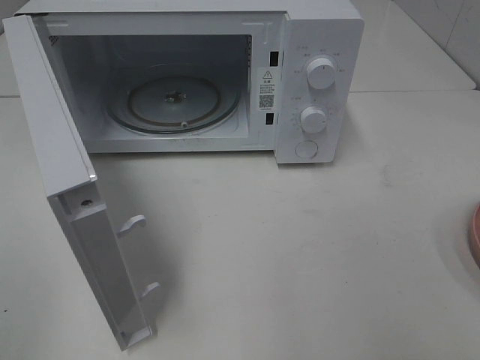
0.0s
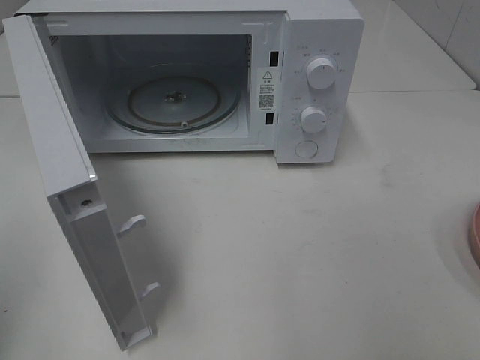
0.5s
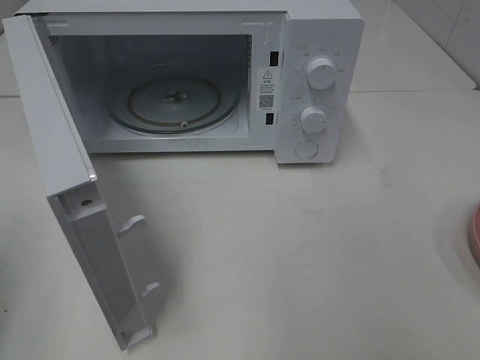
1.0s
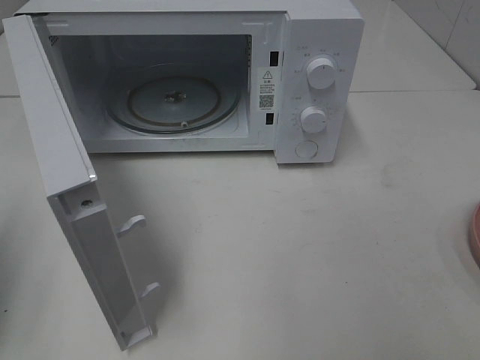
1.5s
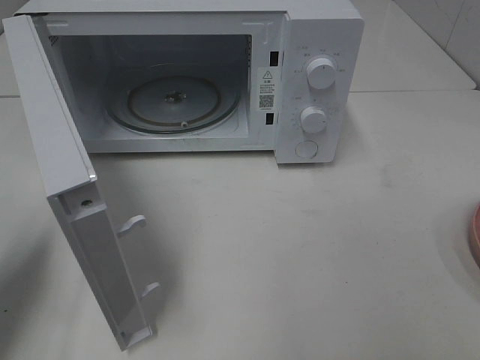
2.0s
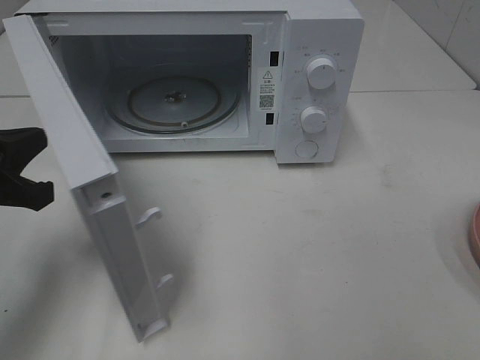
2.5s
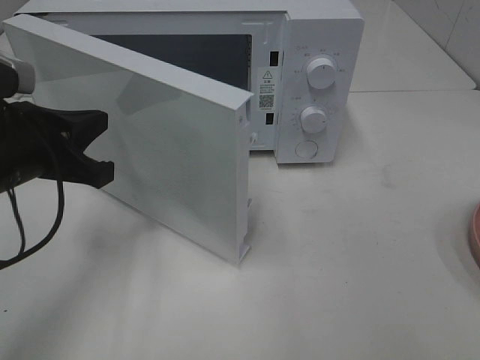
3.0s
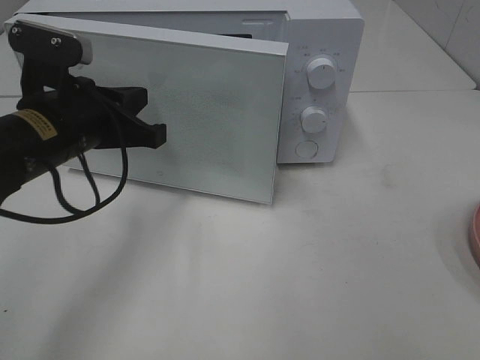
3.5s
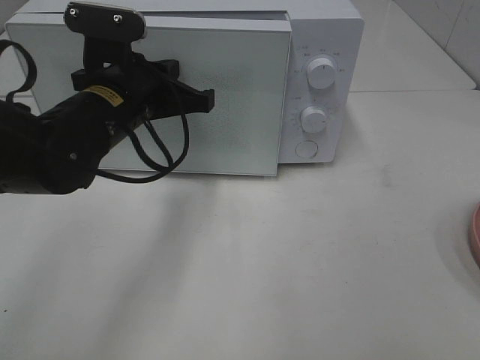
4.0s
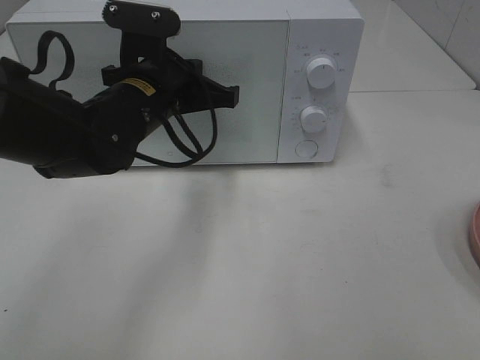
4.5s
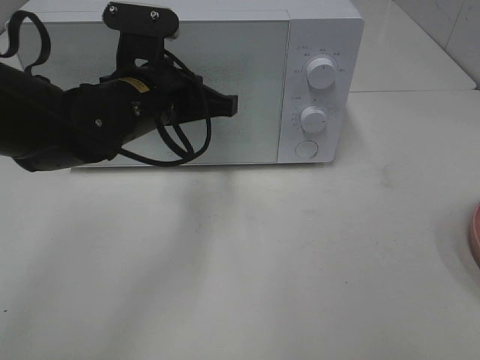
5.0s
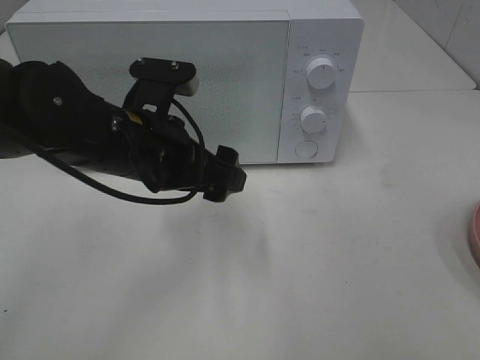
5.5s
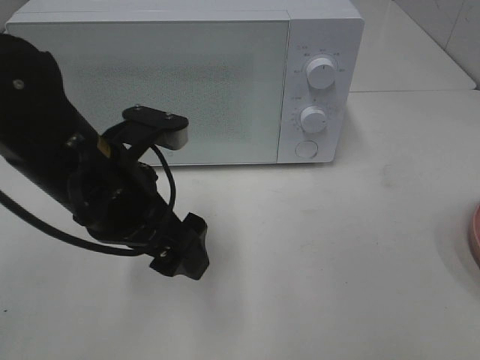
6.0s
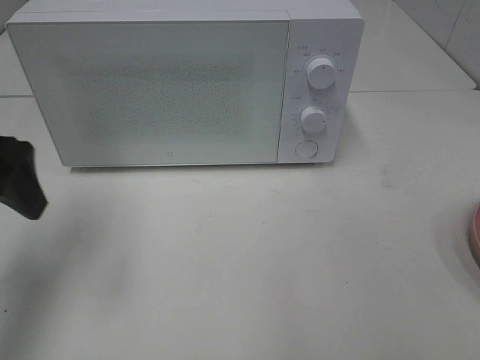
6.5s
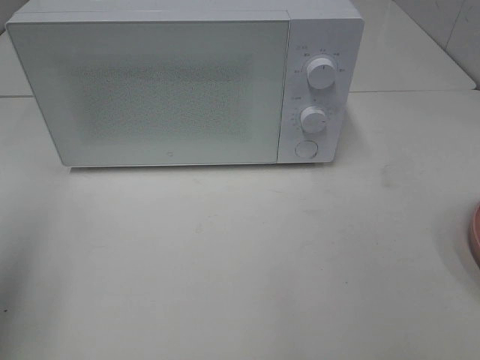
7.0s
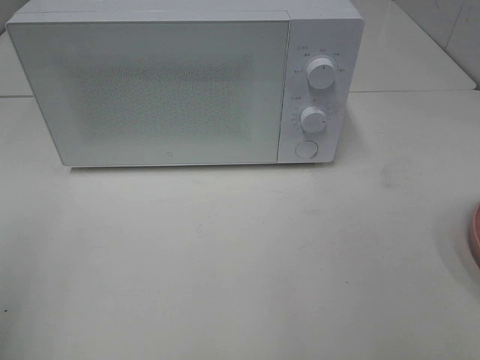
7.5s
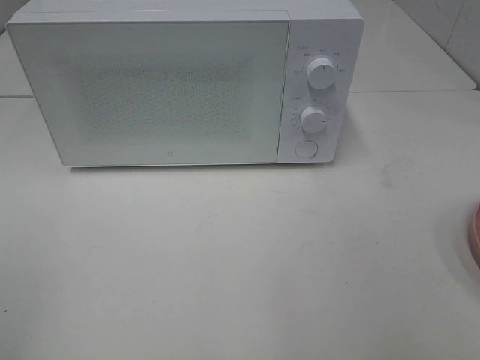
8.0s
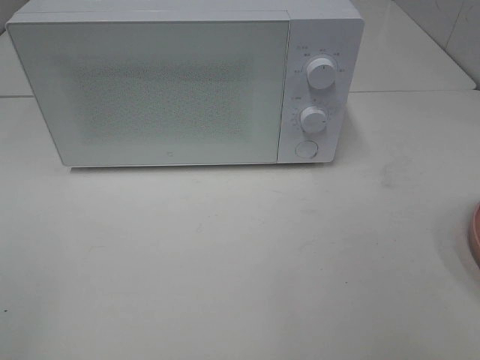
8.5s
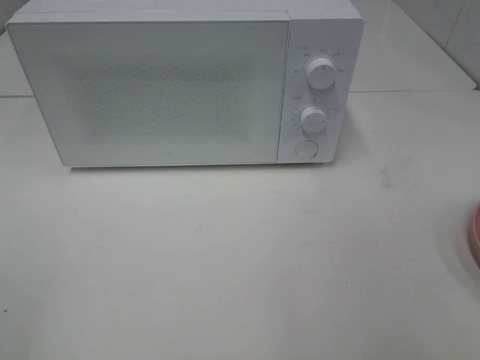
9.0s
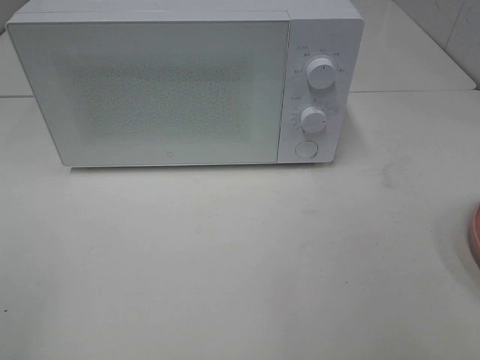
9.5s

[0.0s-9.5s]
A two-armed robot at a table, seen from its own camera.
Task of the whole recording: Heat the burger.
Step, 0.0s to 5.0s: Left hand: close the microwave door.
0.0s to 2.0s: The left gripper heads forward and downward, covering some 20 cm, and closes up.
2.0s to 4.0s: The left gripper travels to the right and forward by some 25 cm.
4.0s to 5.5s: The left gripper is displaced backward by about 5 cm, and opens.
5.5s to 7.5s: The left gripper travels to the left, backward and upward by roughly 30 cm.

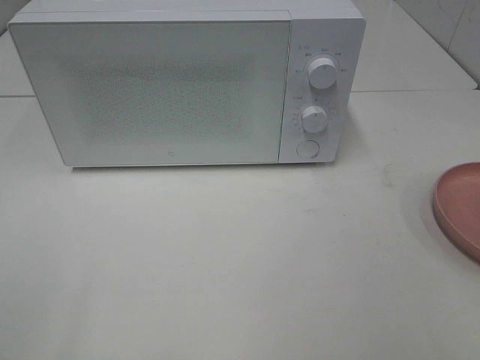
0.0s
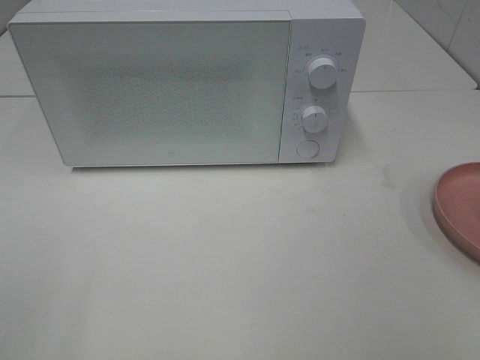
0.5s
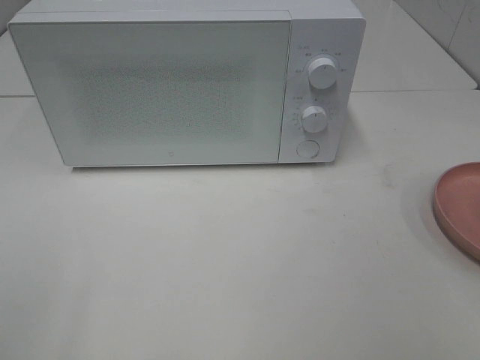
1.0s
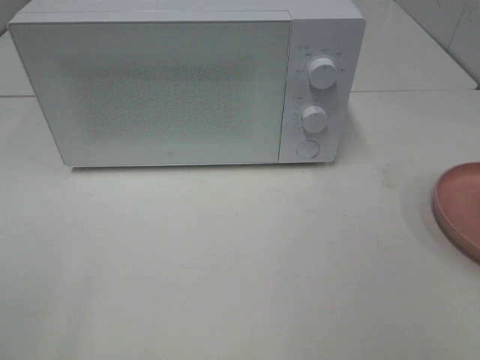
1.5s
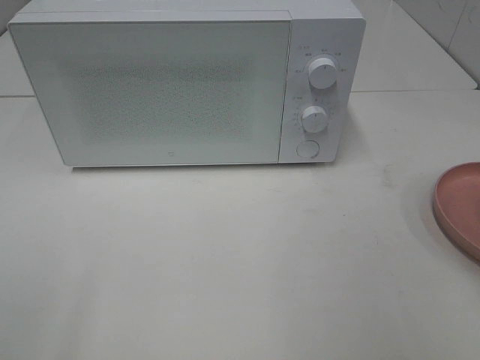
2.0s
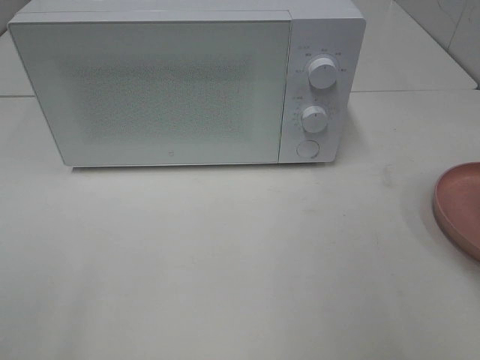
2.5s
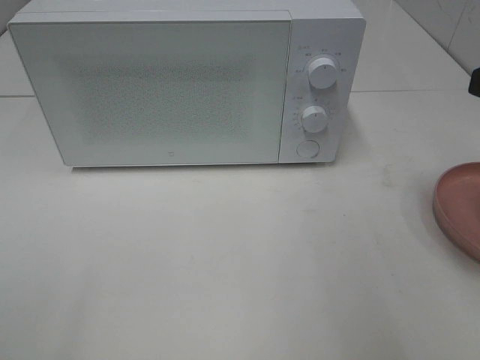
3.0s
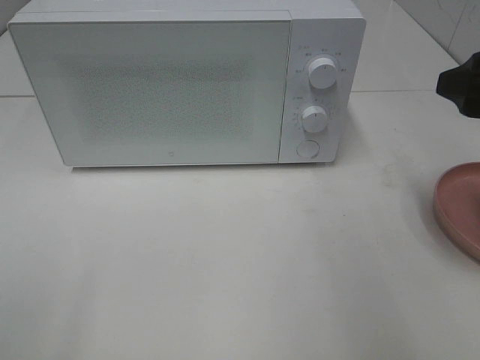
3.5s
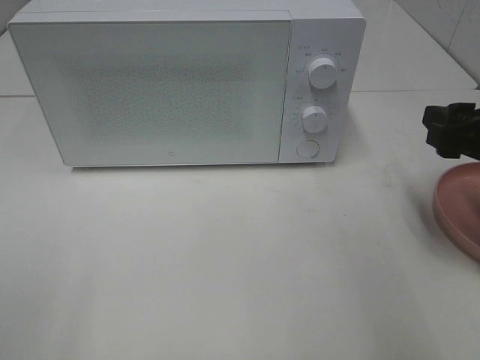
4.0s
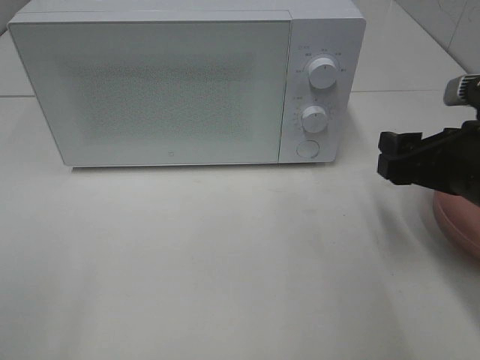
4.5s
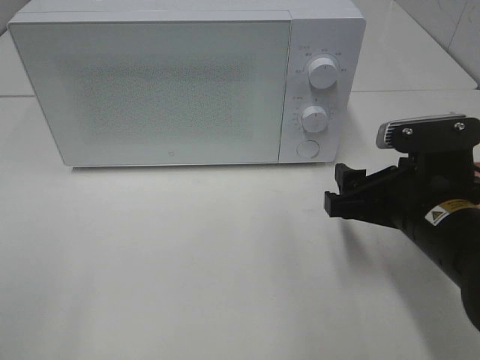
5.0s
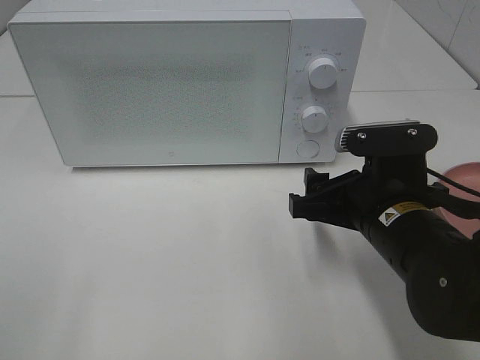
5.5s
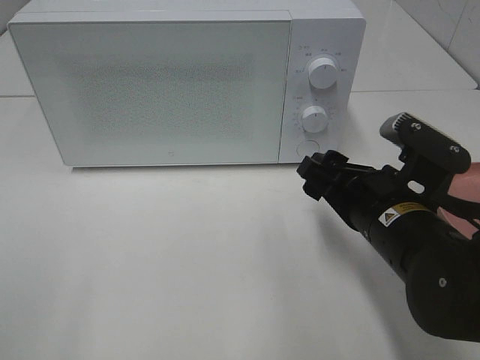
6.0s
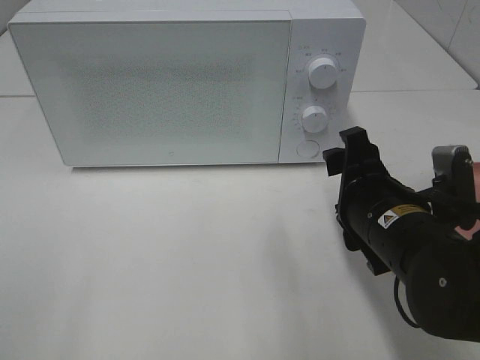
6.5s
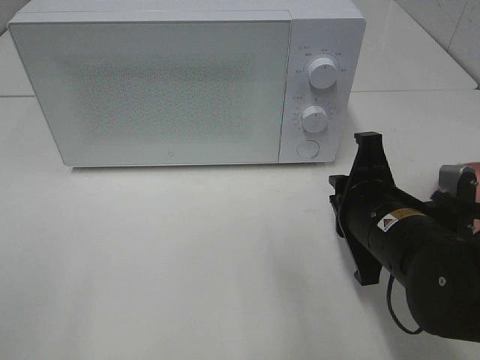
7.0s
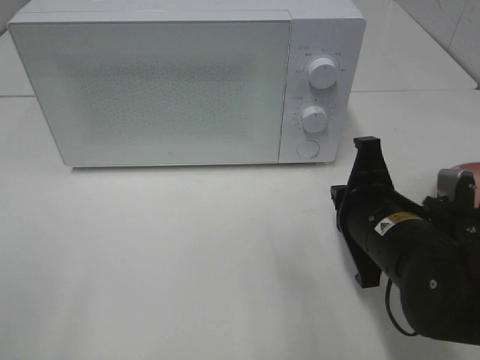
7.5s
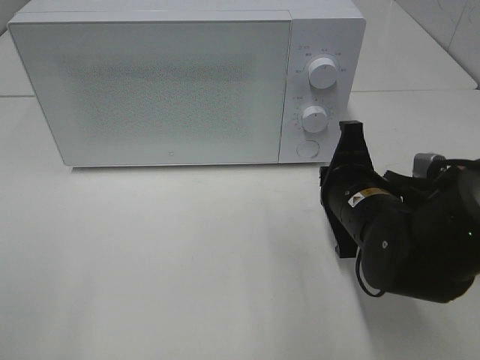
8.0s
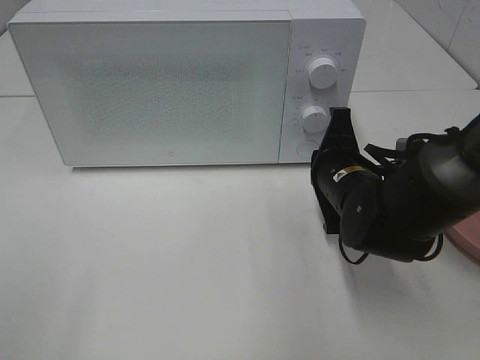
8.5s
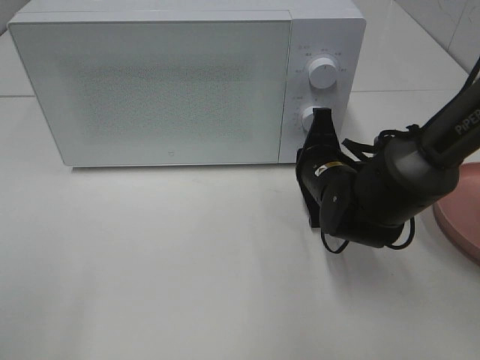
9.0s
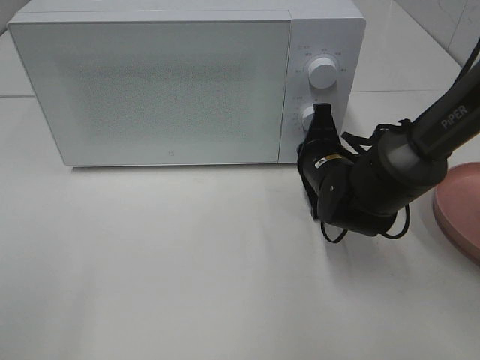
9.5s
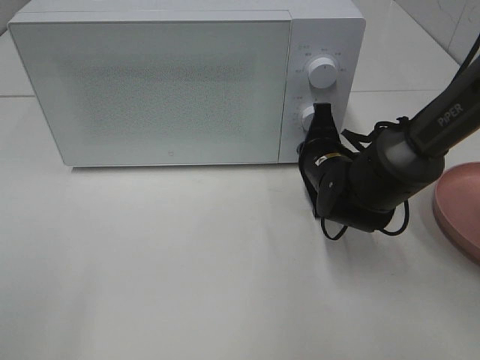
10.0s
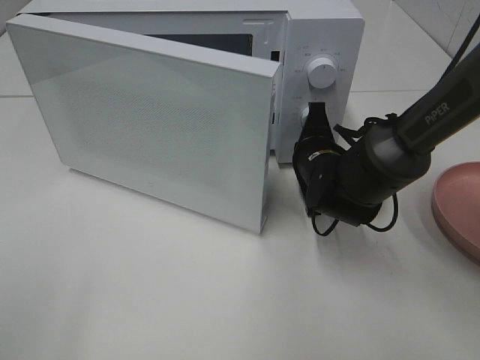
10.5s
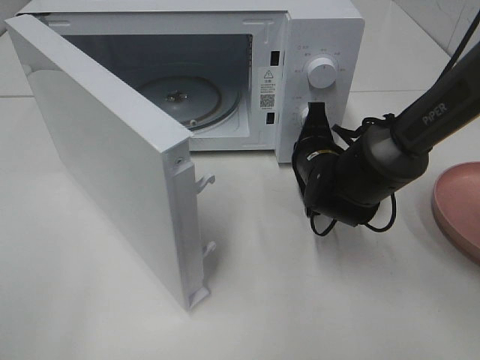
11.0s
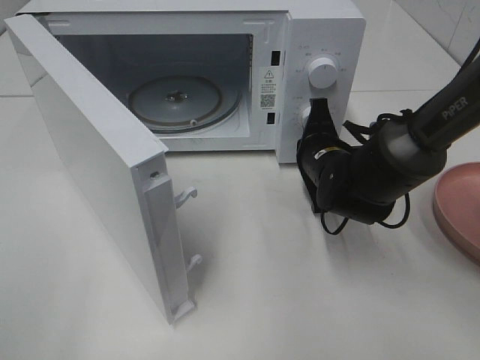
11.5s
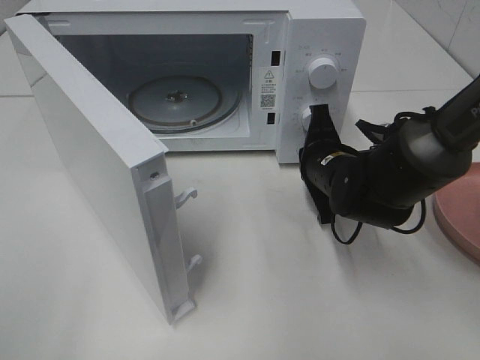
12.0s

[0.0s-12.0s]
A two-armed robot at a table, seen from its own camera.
Task of the whole recording: Heat the burger.
Step, 0.0s to 11.5s: Right hand: press the switch.
2.0s to 4.0s: The right gripper heads forward and downward, covering approximately 20 cm.
4.0s to 6.0s: The right gripper is displaced to the left and downward by roughly 15 cm.
6.0s to 8.0s: The right gripper closes.
8.0s to 10.0s: The right gripper travels forward by some 10 cm.

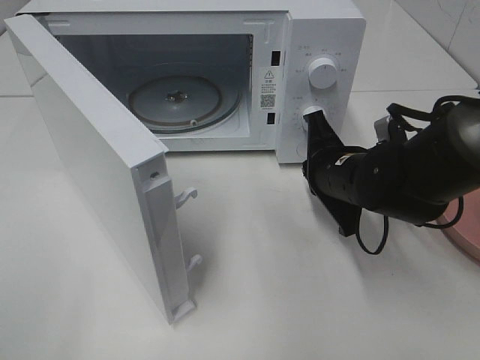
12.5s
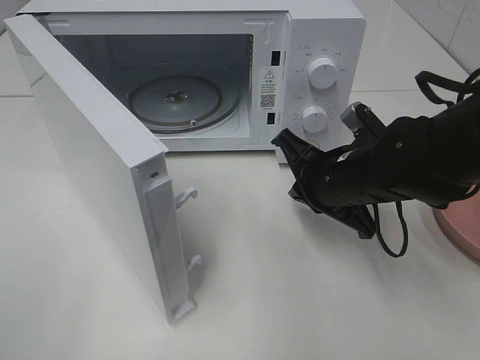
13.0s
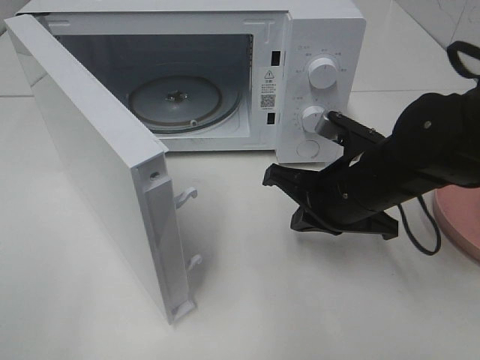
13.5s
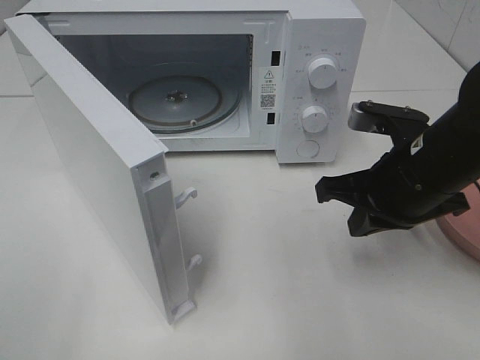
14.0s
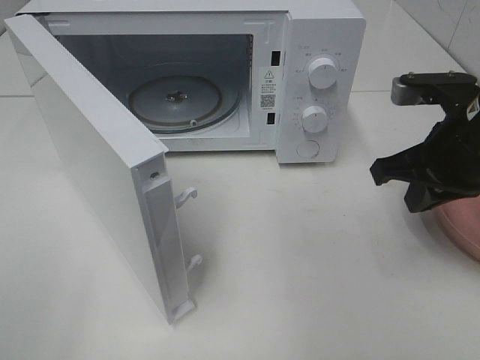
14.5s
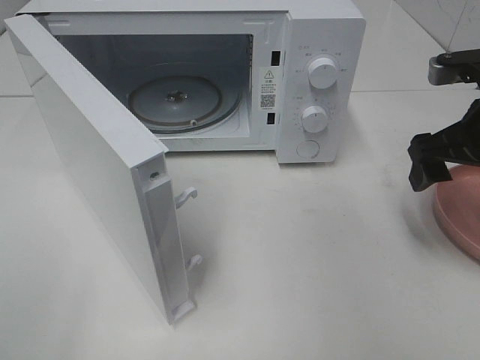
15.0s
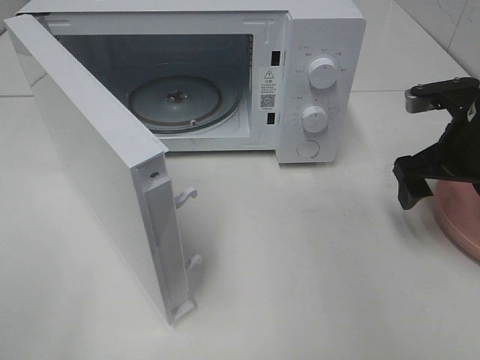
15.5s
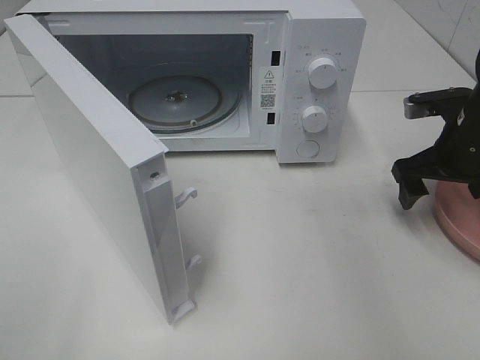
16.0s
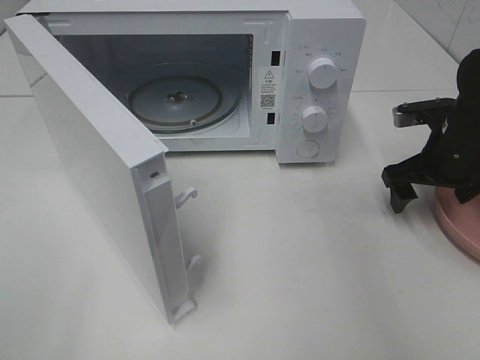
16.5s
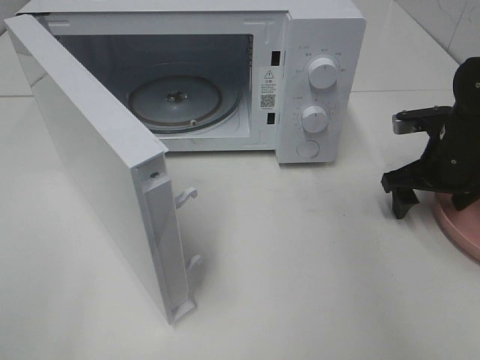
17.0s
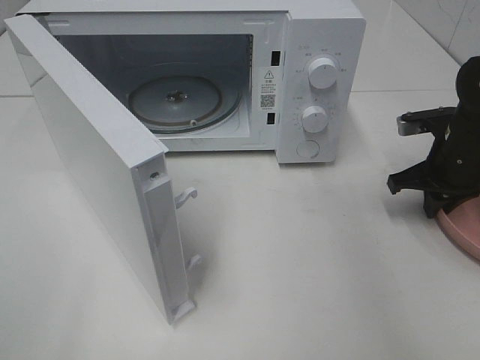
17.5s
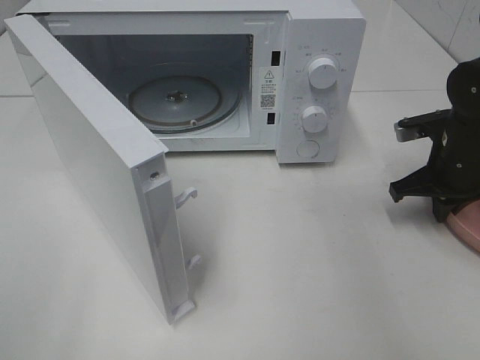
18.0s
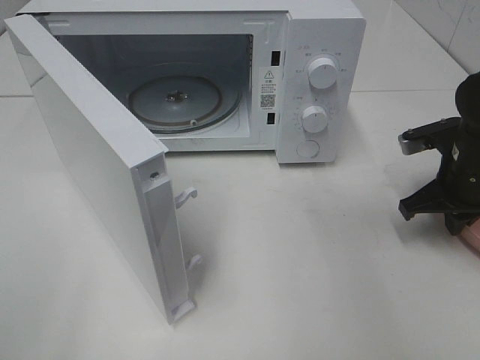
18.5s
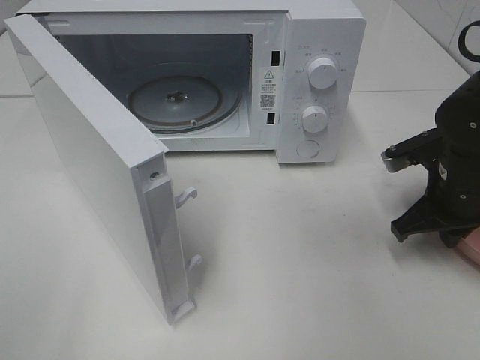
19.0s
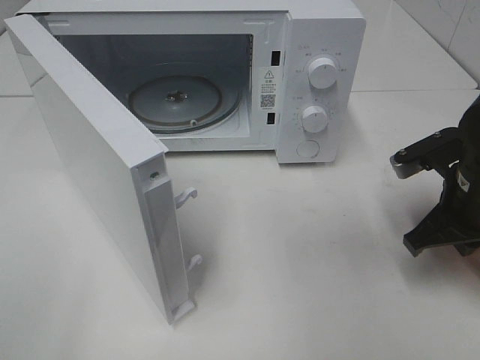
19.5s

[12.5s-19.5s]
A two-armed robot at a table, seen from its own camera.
Task of the whole recording: Heat the burger.
Step, 12.5s to 18.0s: Right hand: grab the plate with the hamburger.
12.5s to 14.5s: The right gripper moves upward and to the right, about 15 cm.
14.5s to 16.0s: The right gripper goes some 10 cm forward, downward and to the right, and opens.
16.0s to 17.5s: The right gripper closes.
17.5s to 19.5s: The right gripper heads backward, covering roughly 10 cm.
